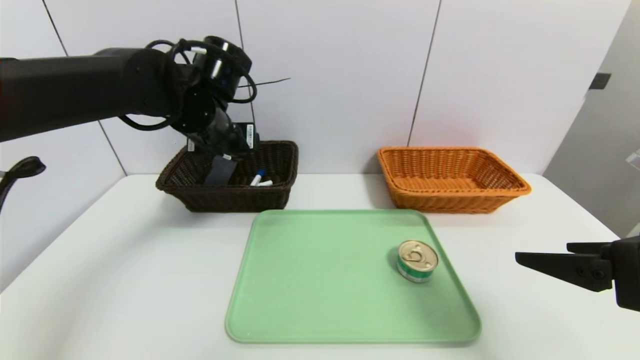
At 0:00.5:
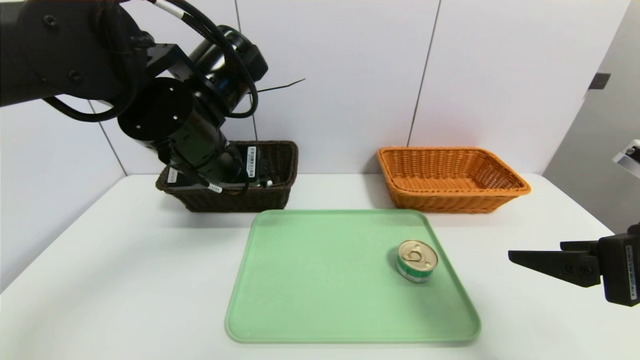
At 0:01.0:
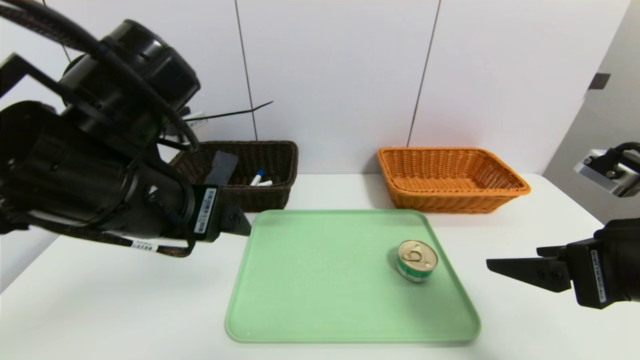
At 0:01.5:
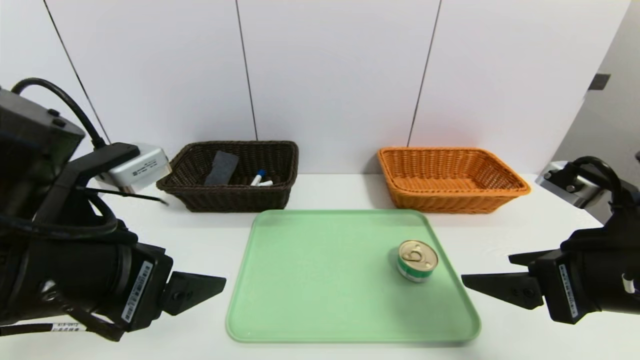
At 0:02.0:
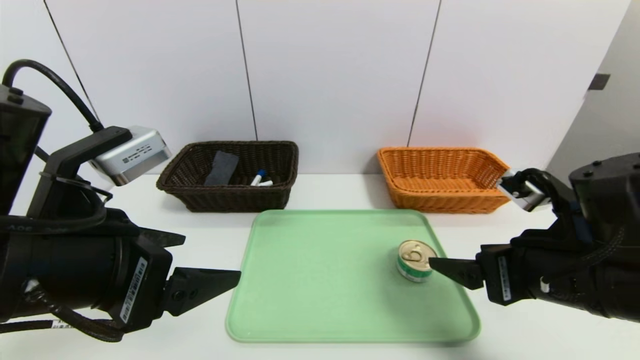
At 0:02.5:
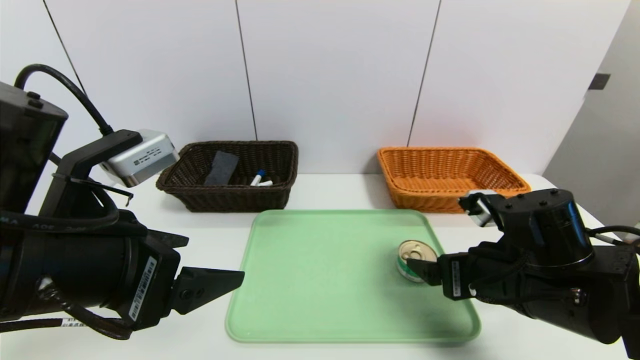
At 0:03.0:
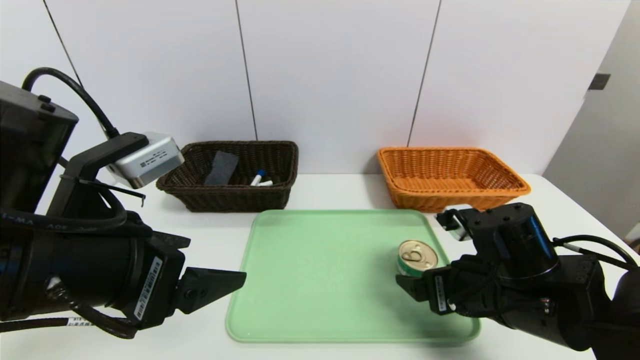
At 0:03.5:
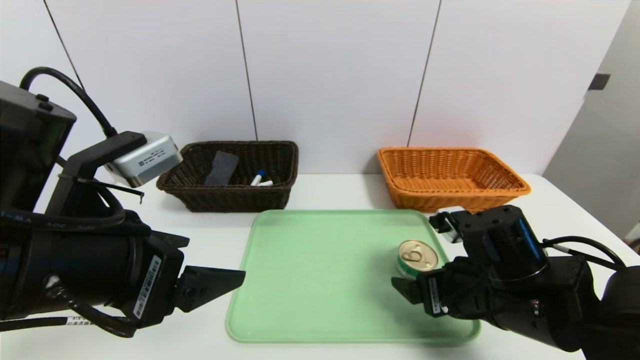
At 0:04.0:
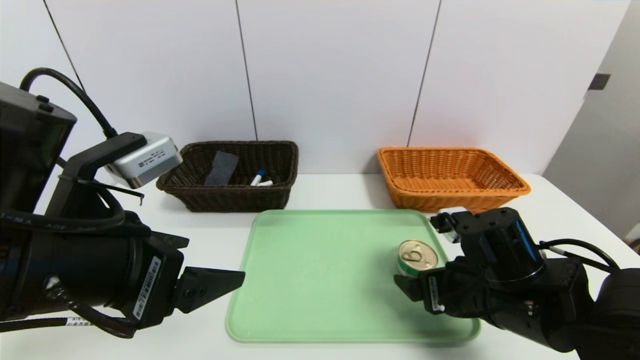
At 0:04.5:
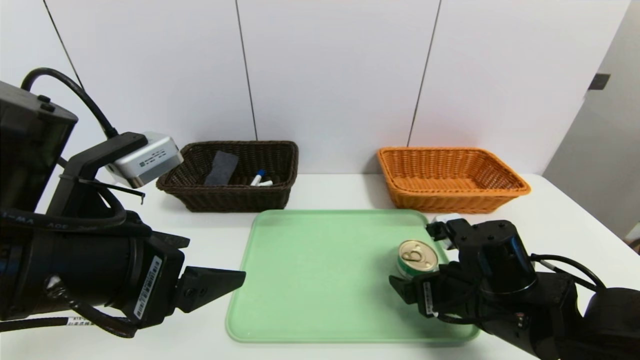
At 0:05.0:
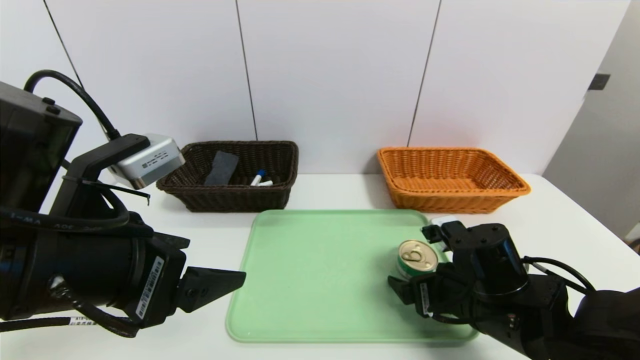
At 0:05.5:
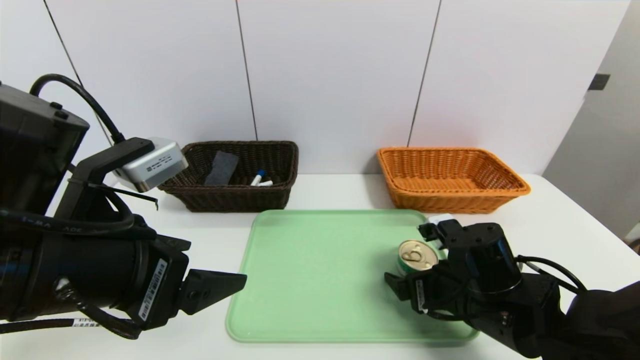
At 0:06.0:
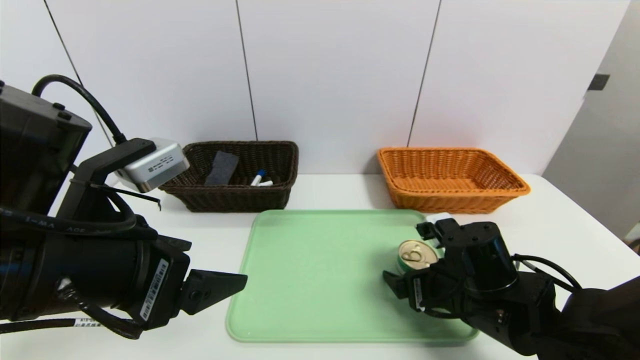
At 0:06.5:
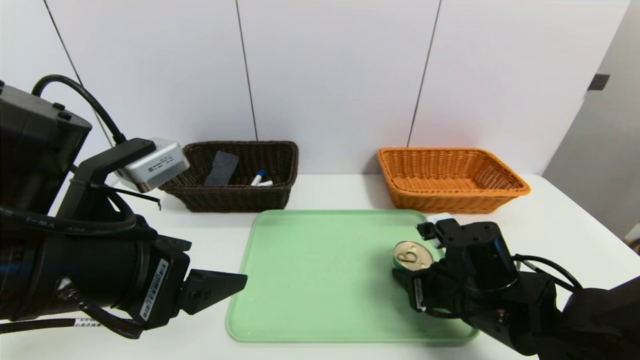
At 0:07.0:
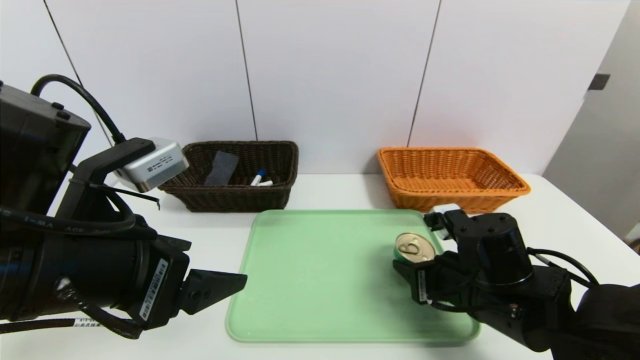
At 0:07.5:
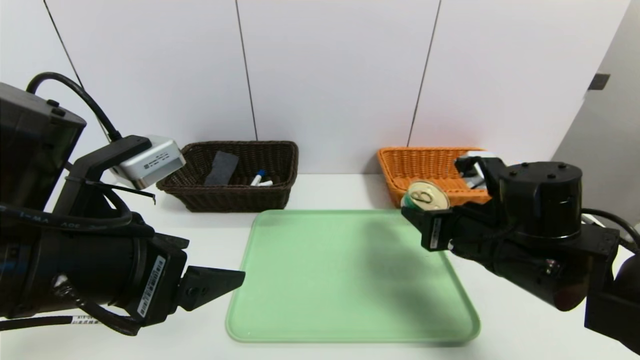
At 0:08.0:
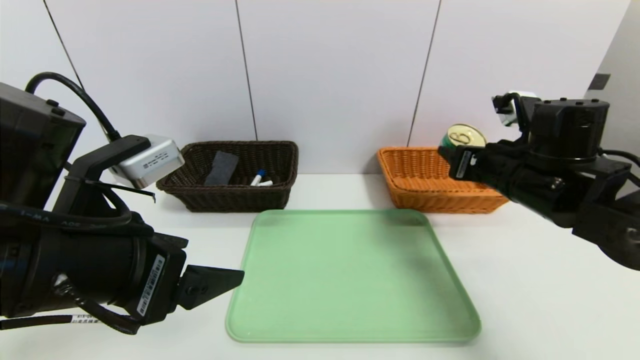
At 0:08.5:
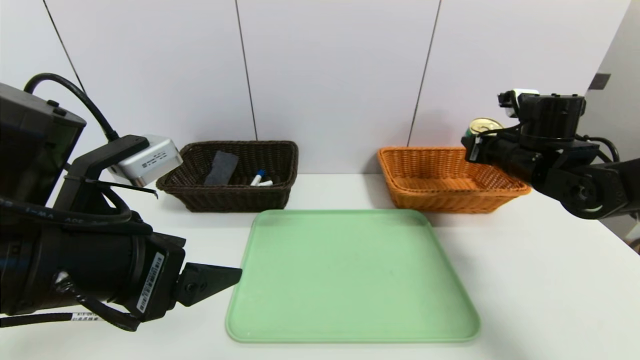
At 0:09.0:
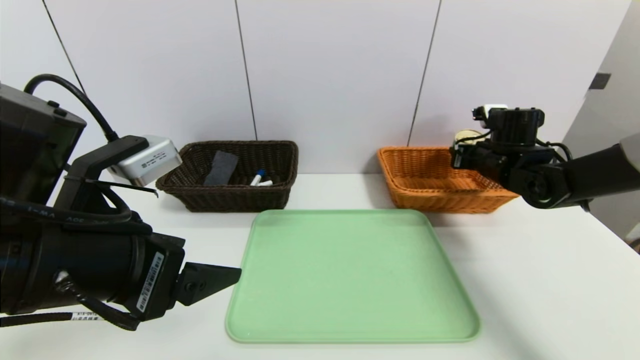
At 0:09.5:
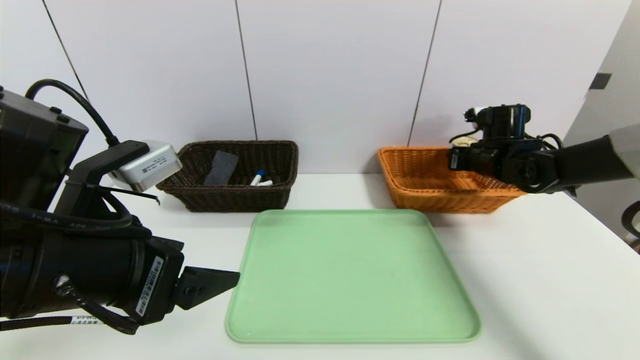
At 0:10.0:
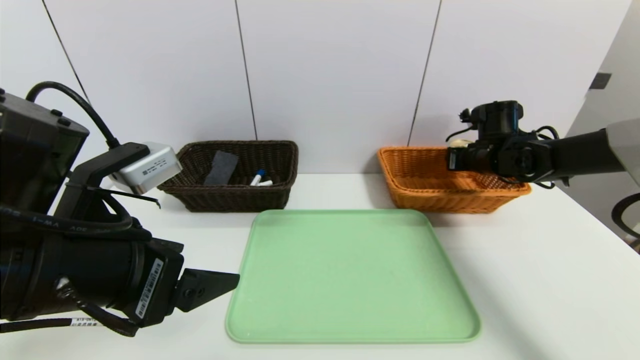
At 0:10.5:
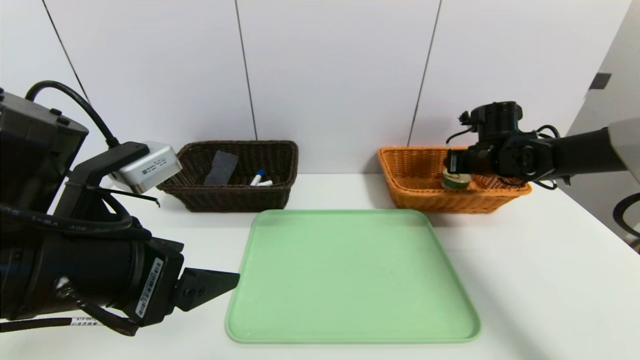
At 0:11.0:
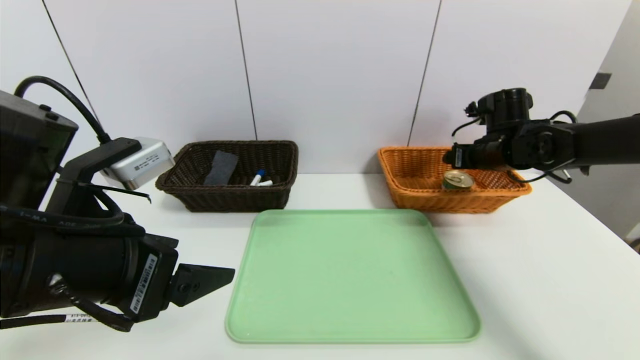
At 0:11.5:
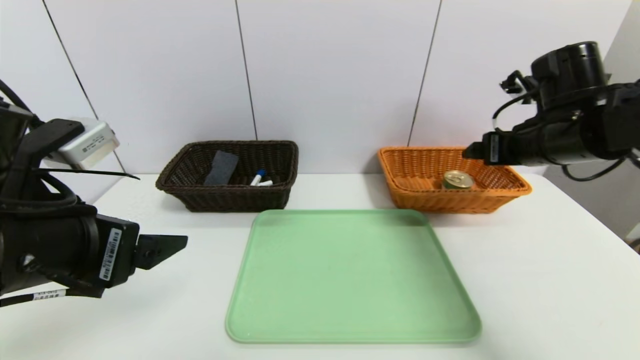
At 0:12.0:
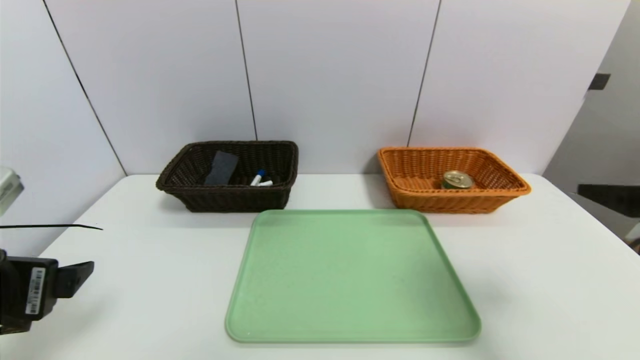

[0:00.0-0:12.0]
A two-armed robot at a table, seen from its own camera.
Task of the whole recording: place the food in the right basket with the right gripper, and place the non food items in the left basket with the left gripper.
Step, 0:00.0 to 0:11.0: Grasp the can and put it in the right basket.
0:00.0 to 0:02.0: The left gripper is displaced backward by about 20 cm, while the right gripper moves to the left, downward and forward, approximately 10 cm.
0:02.0 to 0:04.0: The right gripper shifts some 5 cm downward.
0:04.0 to 0:06.0: The grippers make only small movements.
0:06.0 to 0:08.0: The right gripper shifts approximately 15 cm upward, forward and to the right, and closes up.
0:08.0 to 0:10.0: The right gripper travels forward by roughly 15 cm.
0:10.0 to 0:12.0: The left gripper heads to the left, covering roughly 10 cm. The right gripper moves backward, about 35 cm, and opens.

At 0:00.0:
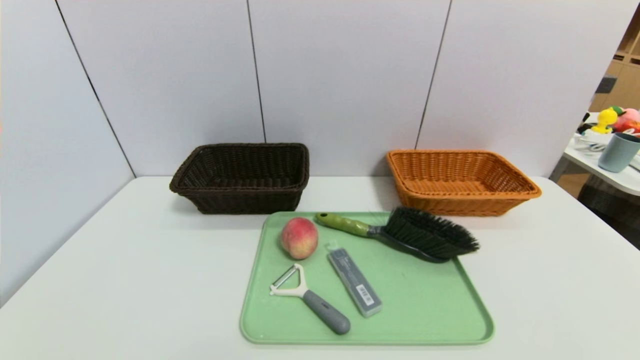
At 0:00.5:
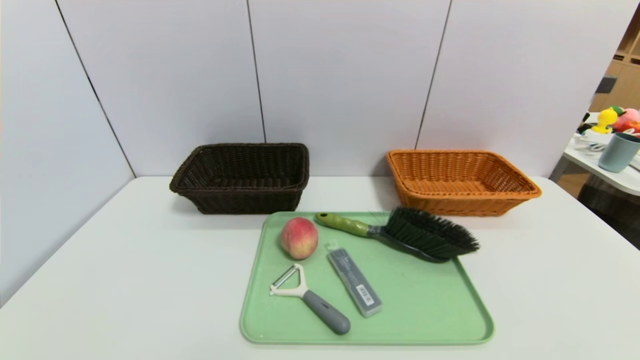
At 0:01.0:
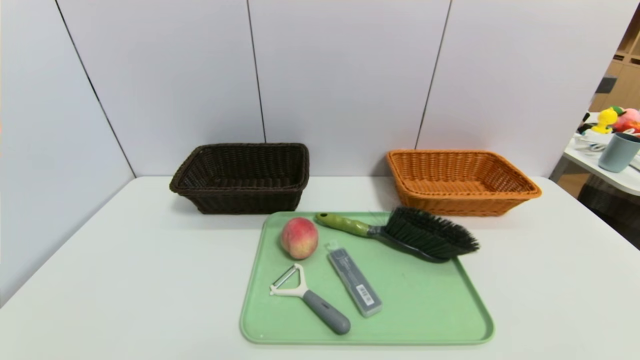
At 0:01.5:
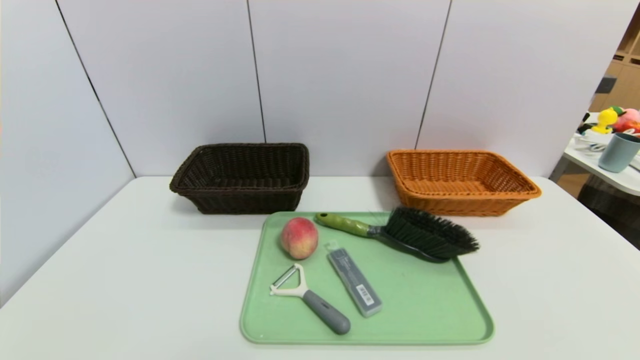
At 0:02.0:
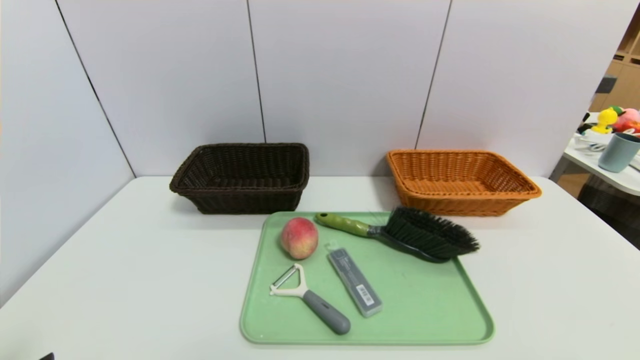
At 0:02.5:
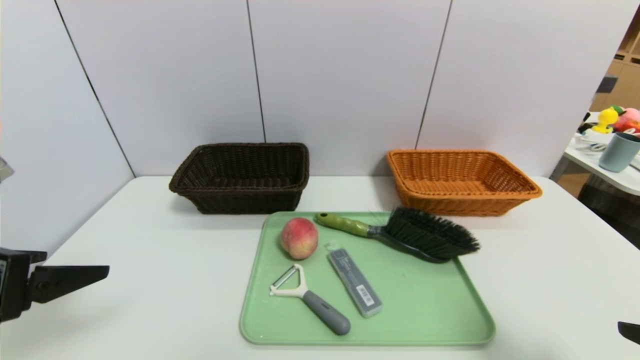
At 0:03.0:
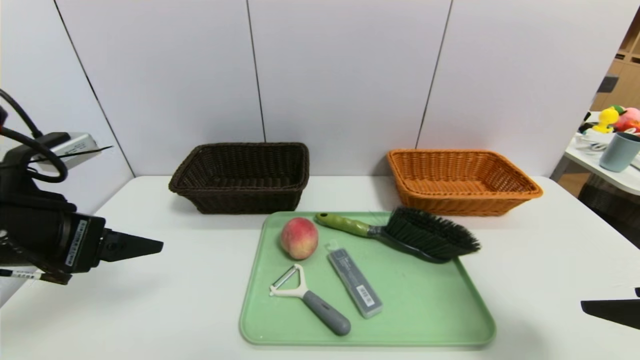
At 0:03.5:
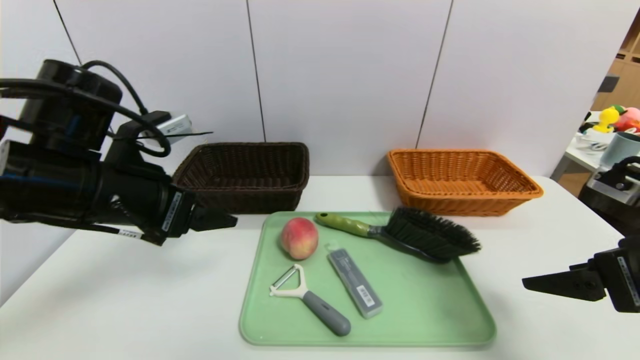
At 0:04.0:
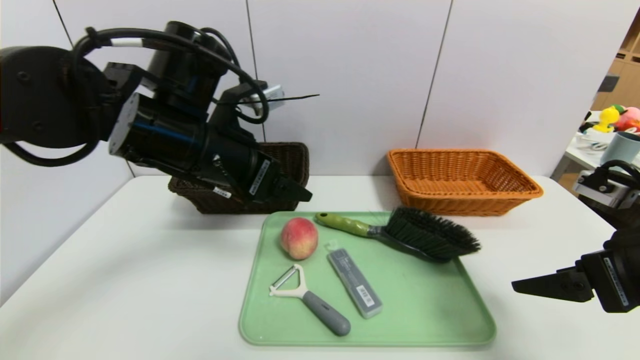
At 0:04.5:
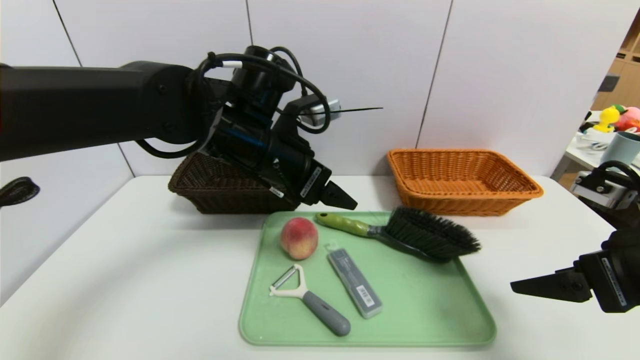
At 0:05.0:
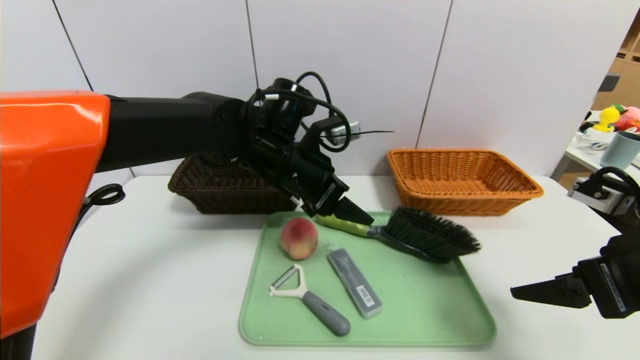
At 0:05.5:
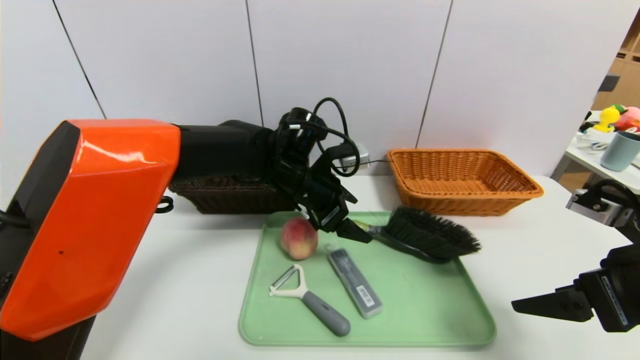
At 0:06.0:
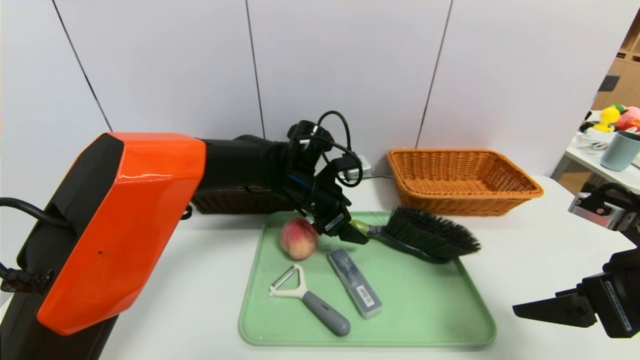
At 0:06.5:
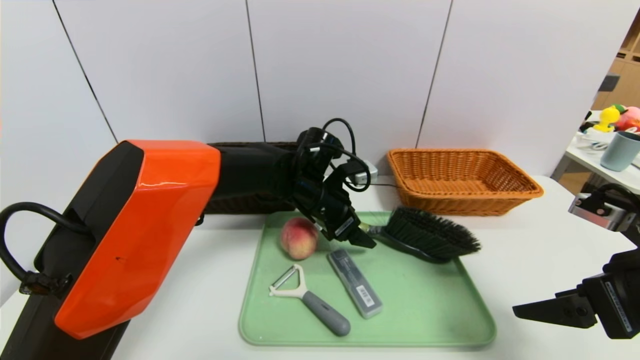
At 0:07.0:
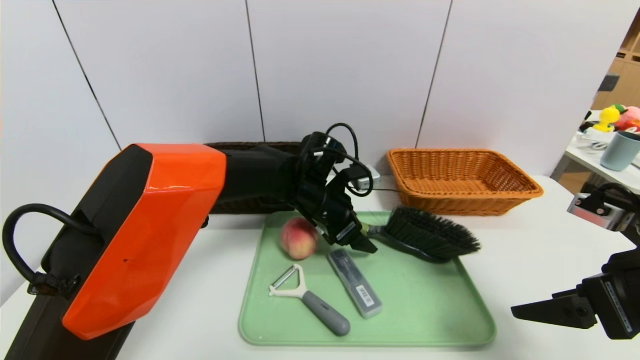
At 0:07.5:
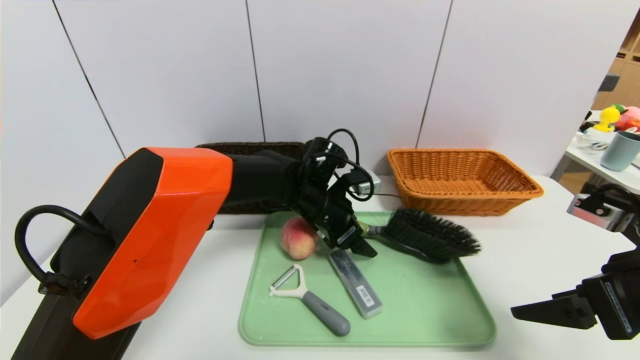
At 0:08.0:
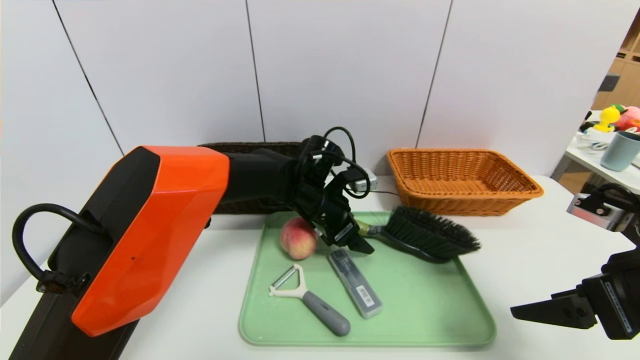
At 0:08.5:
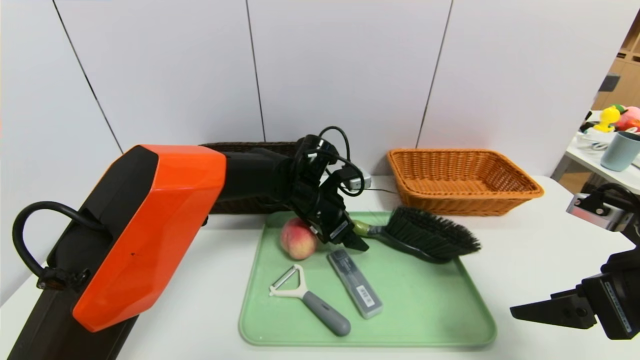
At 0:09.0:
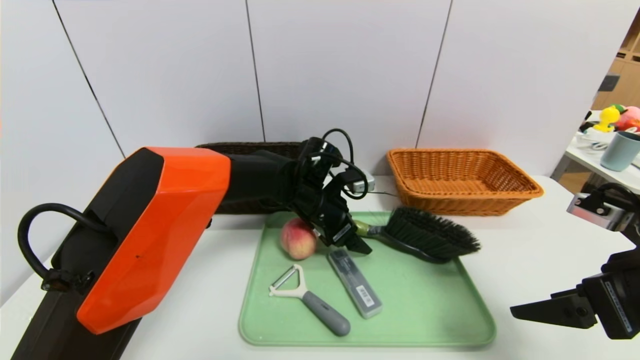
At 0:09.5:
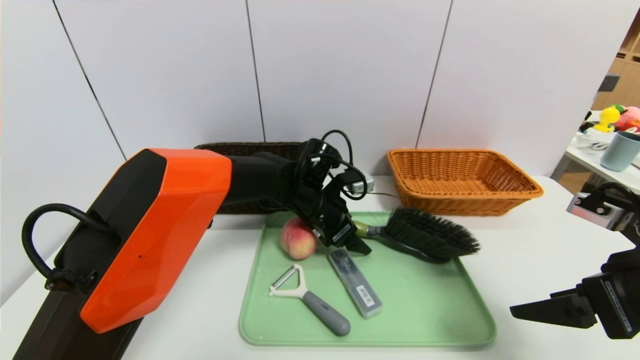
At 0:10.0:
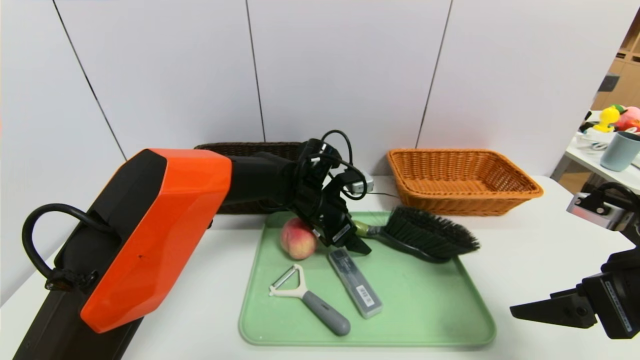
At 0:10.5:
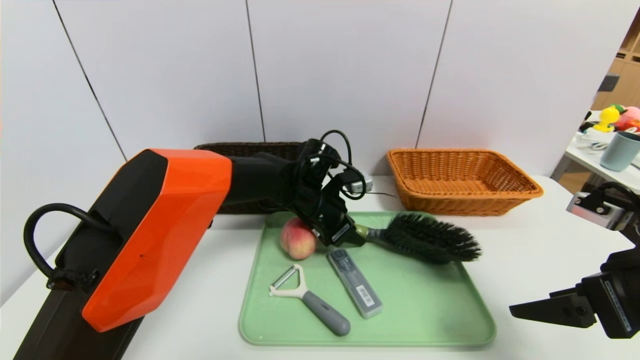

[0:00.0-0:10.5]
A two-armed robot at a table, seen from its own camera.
Task of the whole recording: place the food in the right basket with the right gripper, and place the non food items in the left basket with the left gripper.
0:02.0 to 0:04.0: The left gripper heads forward and to the right, covering some 30 cm. Meanwhile the right gripper shifts about 15 cm forward.
0:04.0 to 0:06.5: The left gripper heads downward, to the right and forward, covering some 20 cm.
0:06.5 to 0:08.5: The grippers stay close to where they were, moving slightly.
0:08.5 to 0:10.5: The left gripper closes its fingers.
